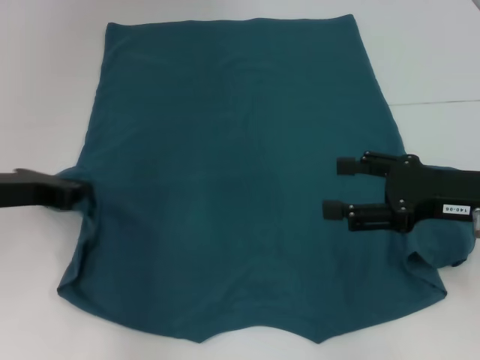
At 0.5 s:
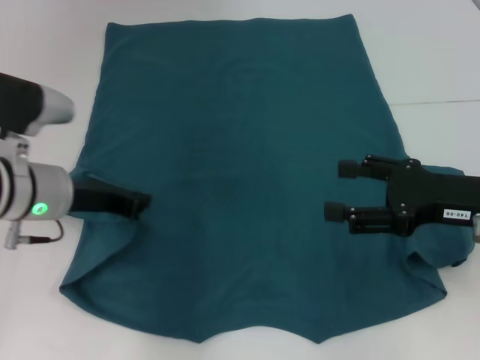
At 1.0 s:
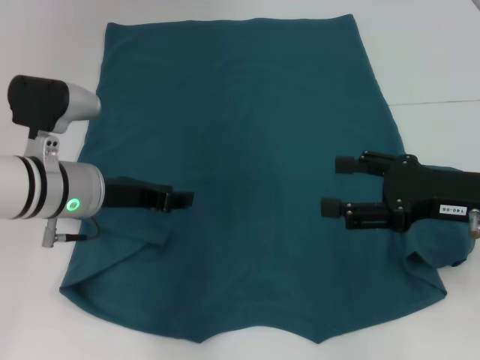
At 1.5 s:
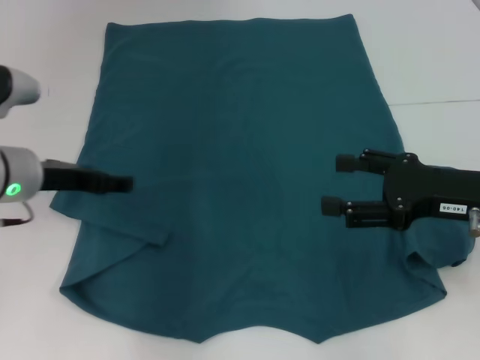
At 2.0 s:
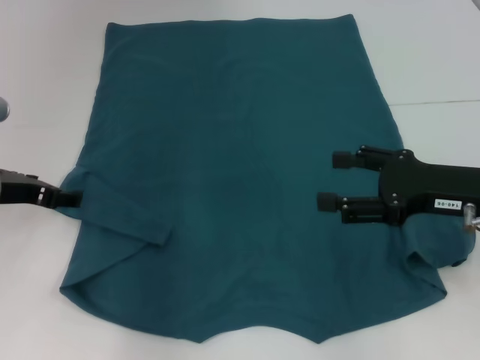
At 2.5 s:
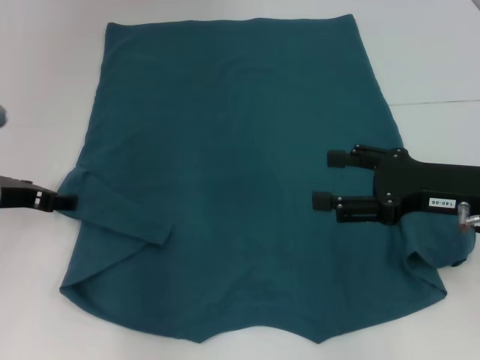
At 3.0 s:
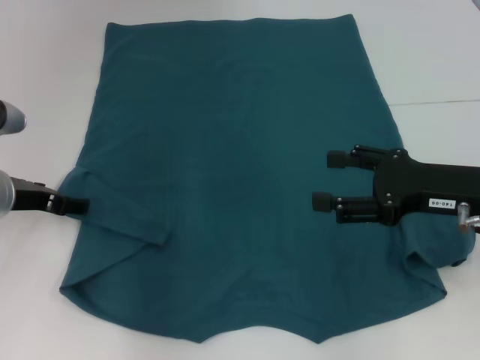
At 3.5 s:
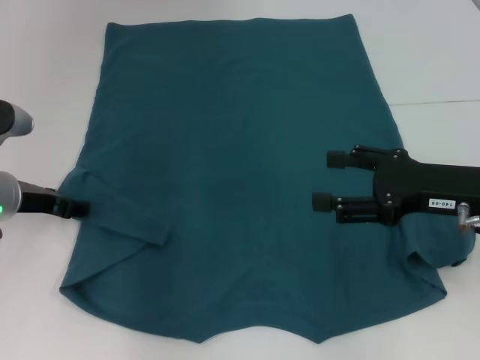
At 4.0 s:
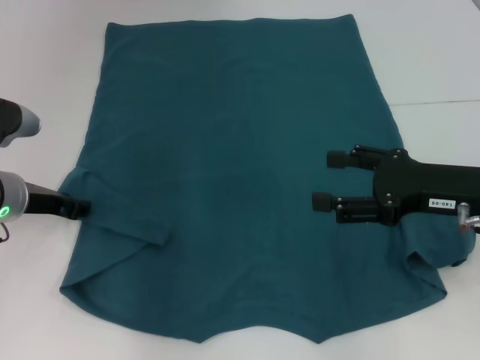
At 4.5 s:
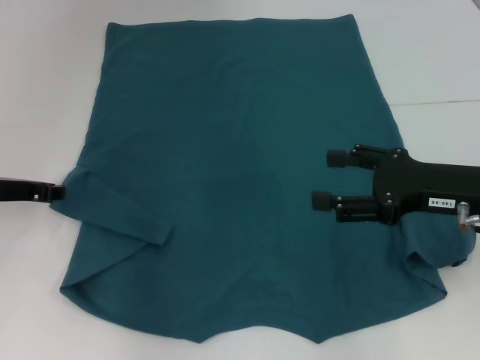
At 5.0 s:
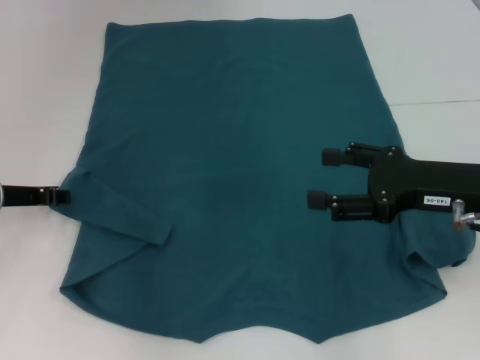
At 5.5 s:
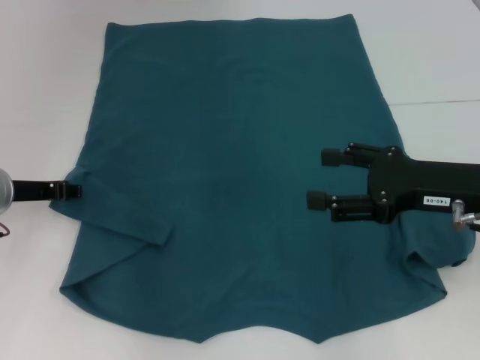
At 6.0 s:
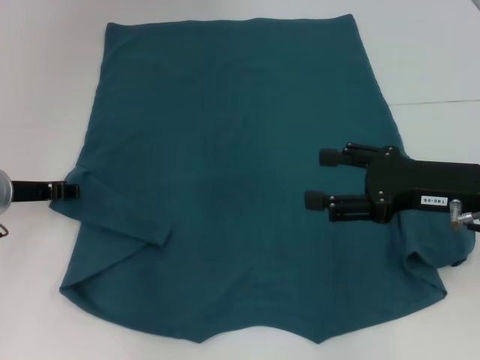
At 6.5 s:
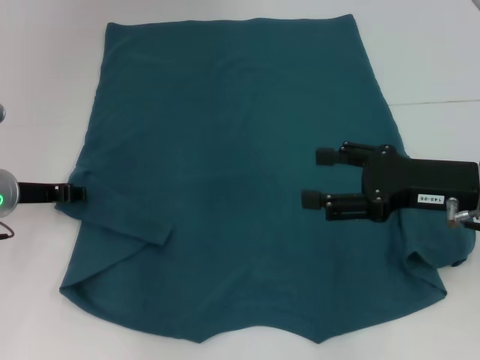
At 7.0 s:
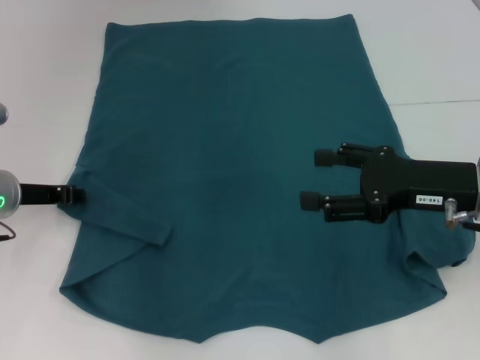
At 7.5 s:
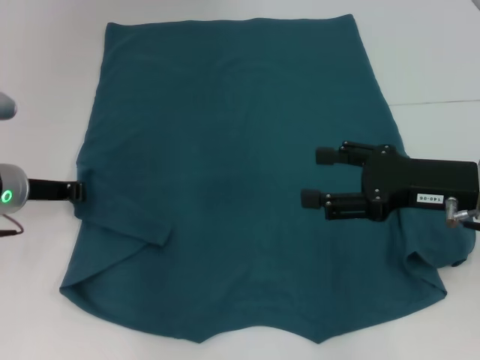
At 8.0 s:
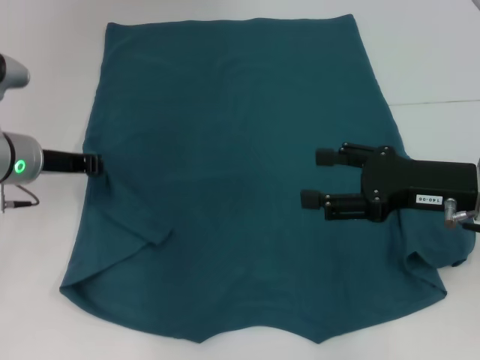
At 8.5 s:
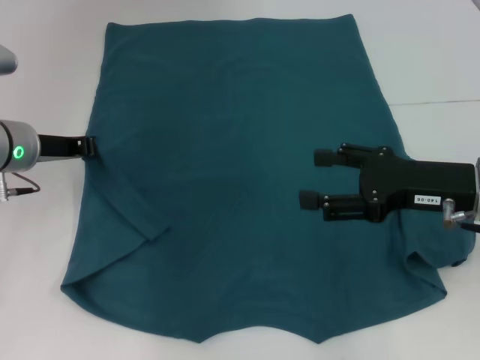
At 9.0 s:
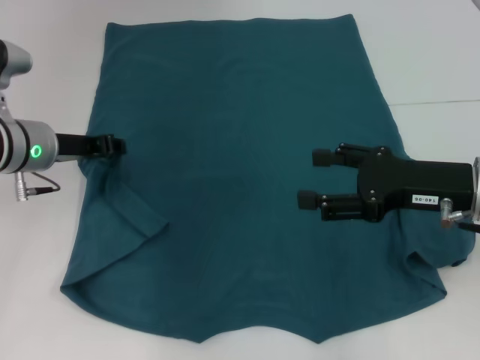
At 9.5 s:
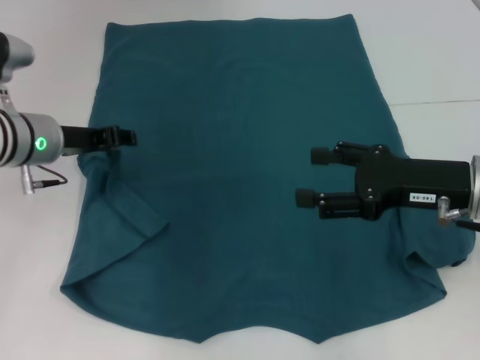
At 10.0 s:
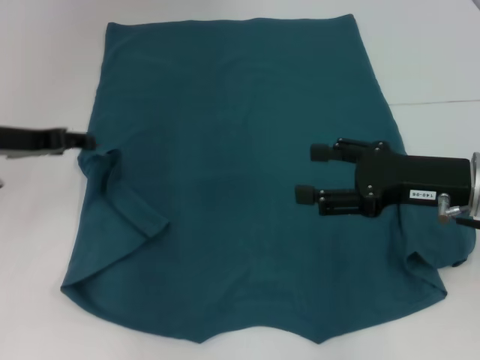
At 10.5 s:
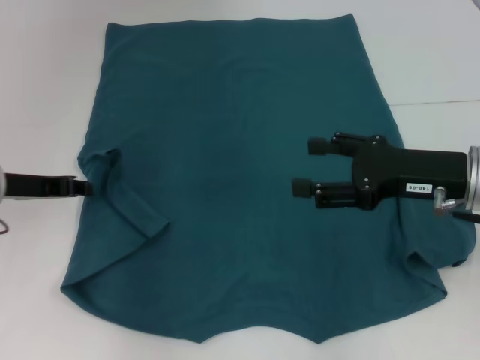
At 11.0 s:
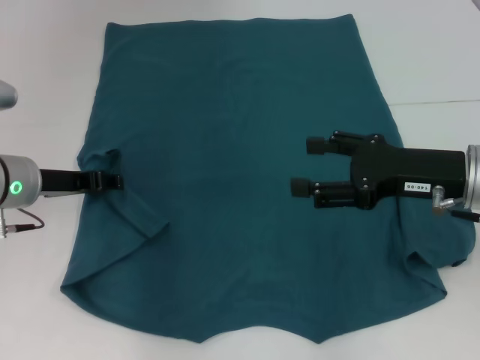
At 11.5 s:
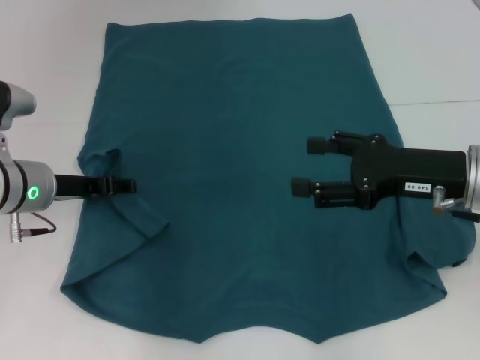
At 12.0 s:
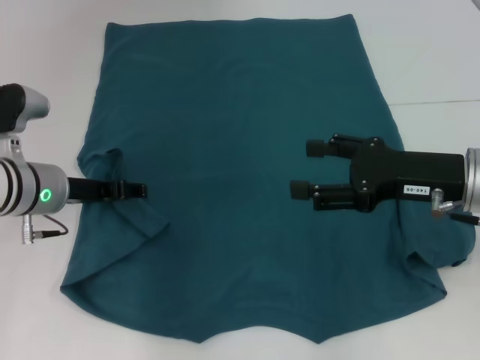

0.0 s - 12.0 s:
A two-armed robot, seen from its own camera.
0.0 s - 2.0 s: The left gripper travels to the right and back again, some 10 cm each way, and opens its fingers.
2.0 s - 4.0 s: The left gripper closes its fingers.
6.0 s - 8.0 s: The left gripper closes its fingers.
8.0 s - 10.0 s: The left gripper ends up approximately 5 cm from where it was, and opens its fingers.
10.0 s - 12.0 s: The left gripper goes roughly 10 cm downward and to the right.

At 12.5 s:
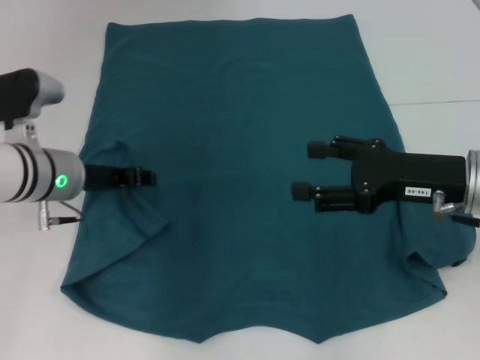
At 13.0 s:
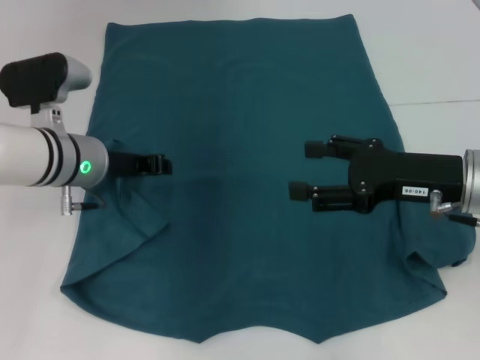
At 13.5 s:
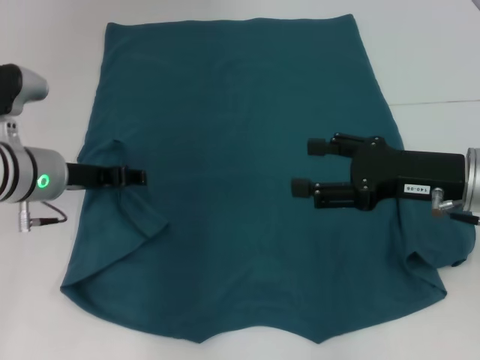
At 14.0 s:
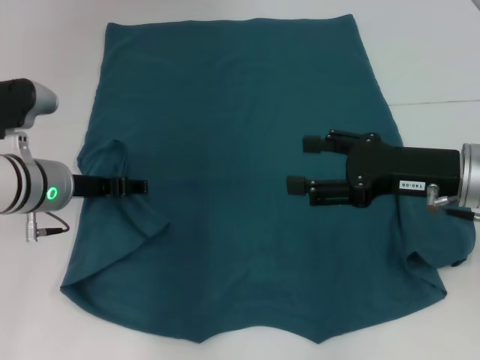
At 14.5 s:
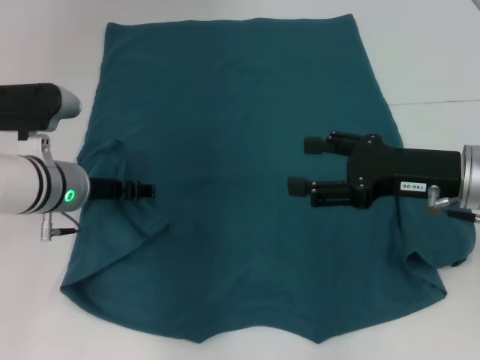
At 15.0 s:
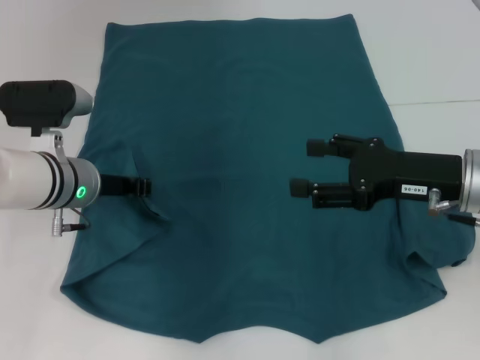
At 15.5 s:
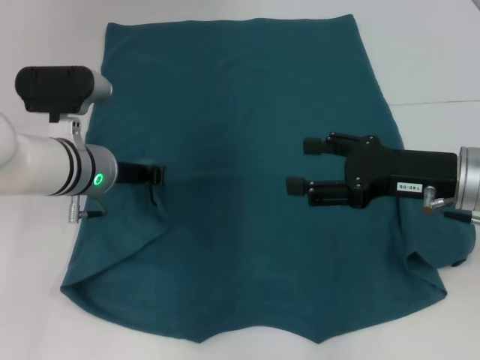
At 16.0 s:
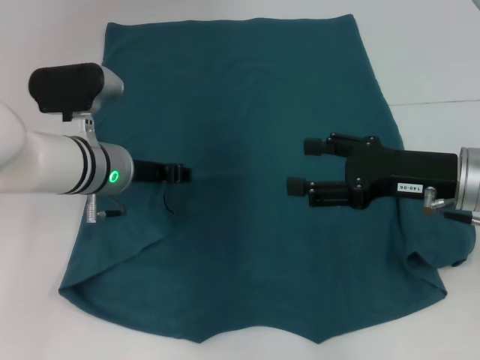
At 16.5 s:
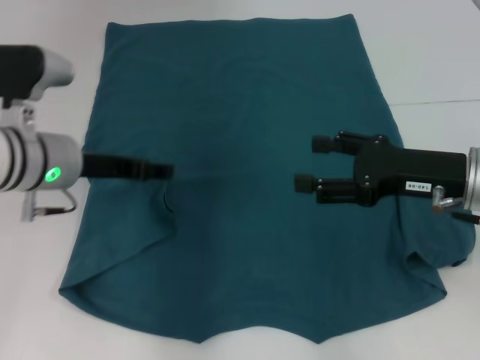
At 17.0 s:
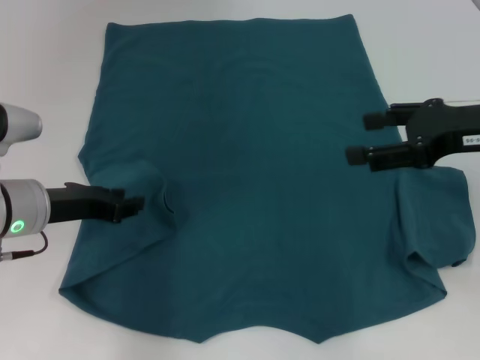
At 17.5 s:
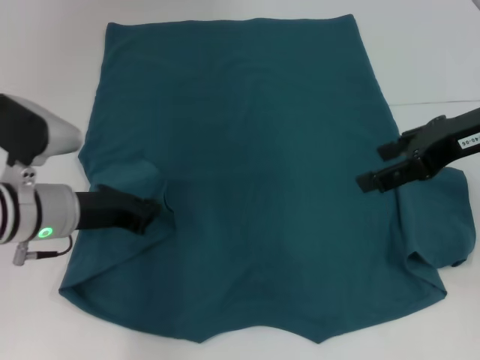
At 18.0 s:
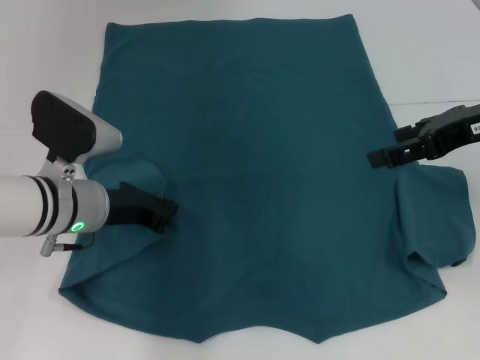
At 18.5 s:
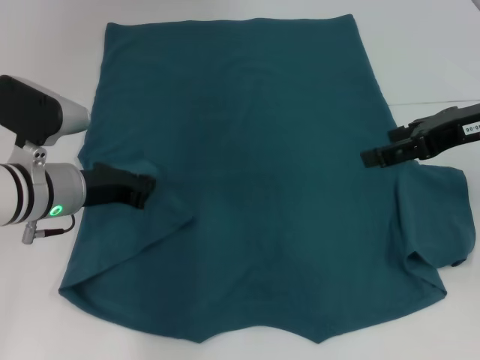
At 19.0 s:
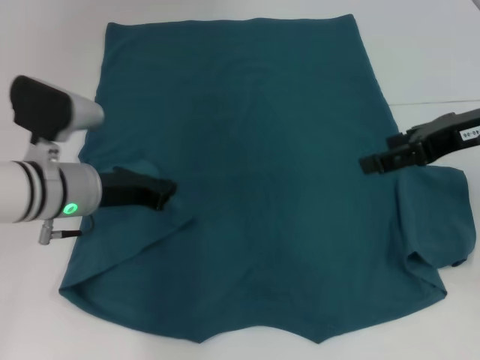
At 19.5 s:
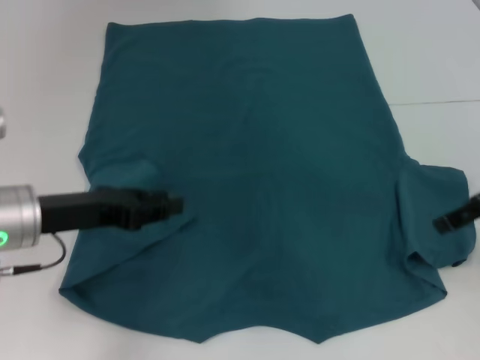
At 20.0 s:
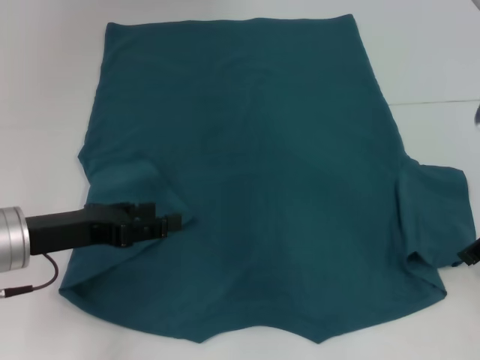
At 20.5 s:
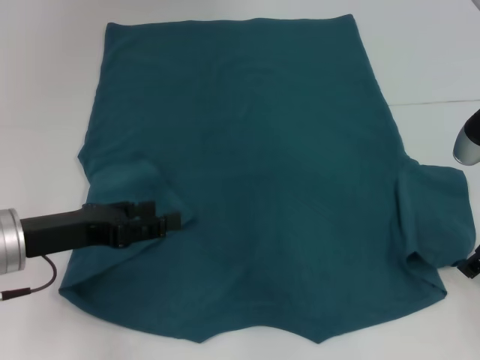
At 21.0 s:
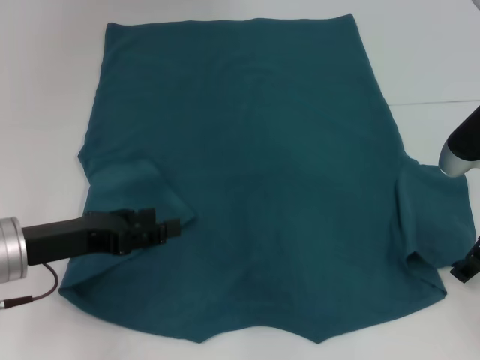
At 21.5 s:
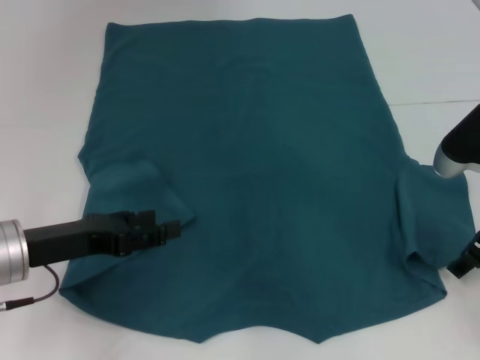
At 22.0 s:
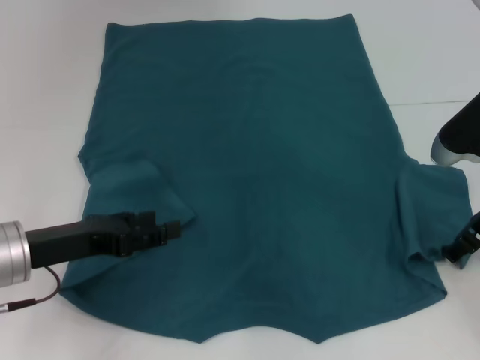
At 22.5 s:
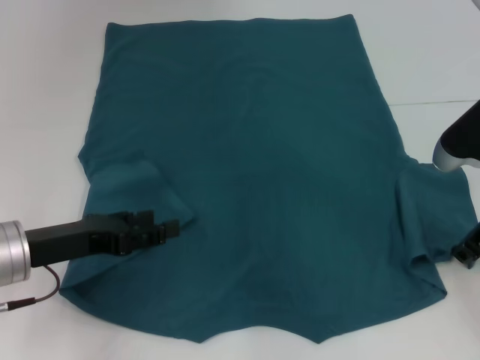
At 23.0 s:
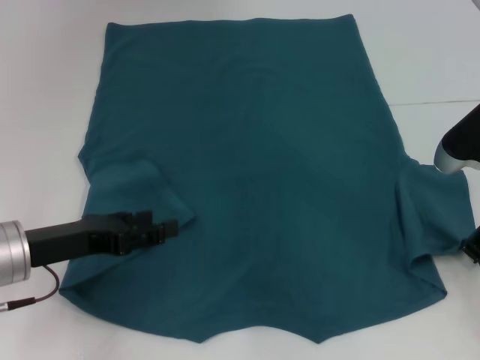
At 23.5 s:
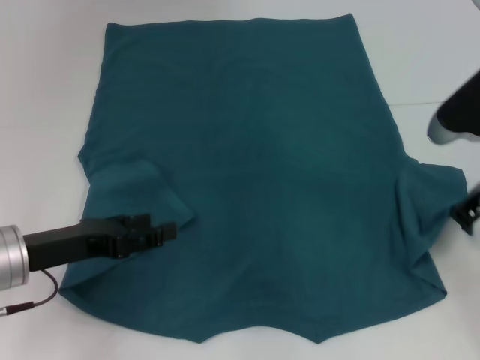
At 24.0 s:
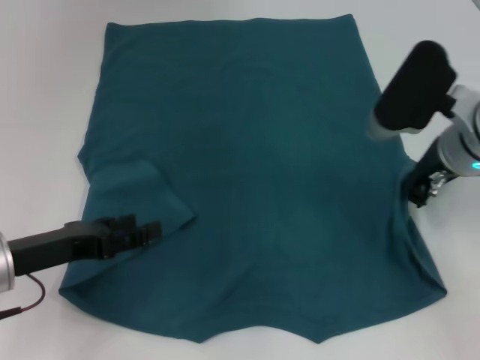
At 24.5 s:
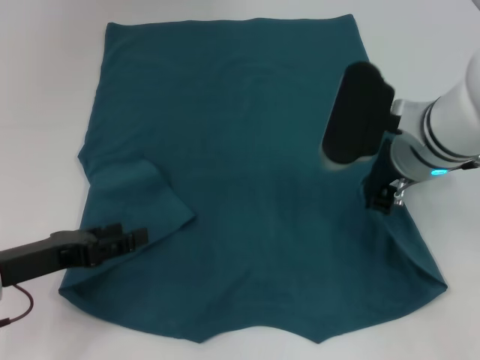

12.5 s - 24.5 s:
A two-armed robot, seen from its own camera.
Step, 12.5 s - 16.5 s: Fold the bottom left sleeve with your left hand.
12.5 s - 14.5 s: The left gripper closes and opens again.
14.5 s - 16.5 s: The left gripper closes, then reopens.
16.5 s - 18.5 s: The right gripper moves upward, roughly 10 cm. Meanwhile the left gripper closes.
18.5 s - 20.5 s: The right gripper travels downward by about 5 cm, while the left gripper goes some 5 cm backward, and opens.
20.5 s - 22.5 s: The grippers stay close to where they were, moving slightly.
22.5 s - 24.5 s: The right gripper moves to the left, roughly 10 cm, and closes.

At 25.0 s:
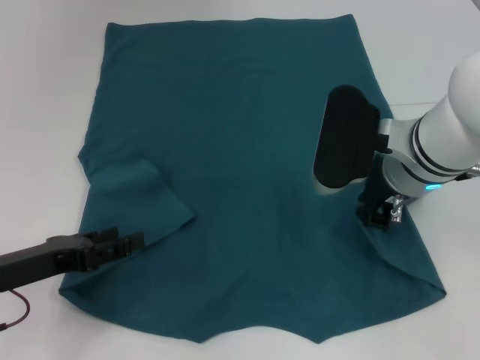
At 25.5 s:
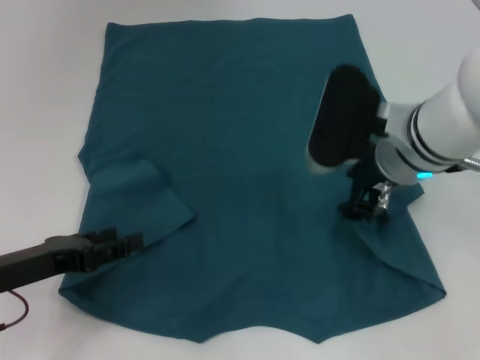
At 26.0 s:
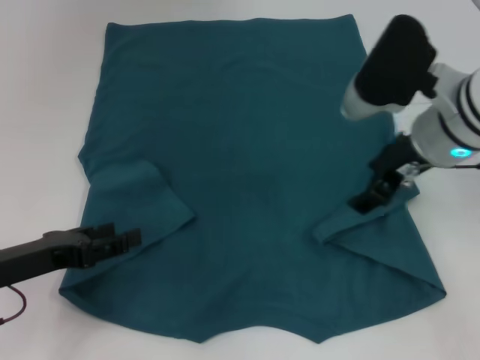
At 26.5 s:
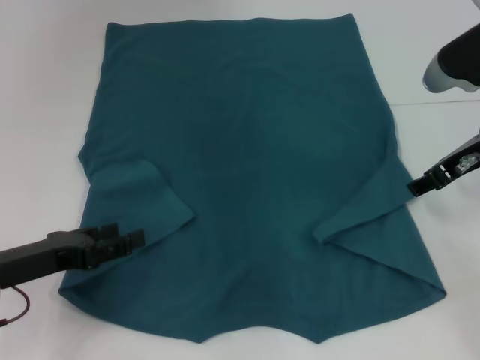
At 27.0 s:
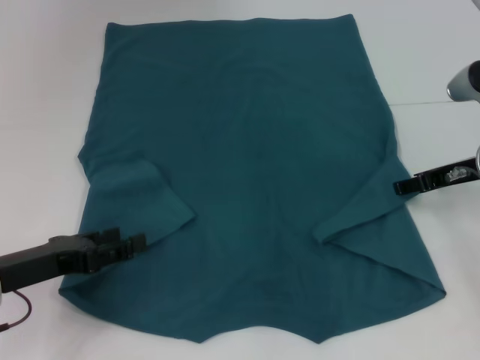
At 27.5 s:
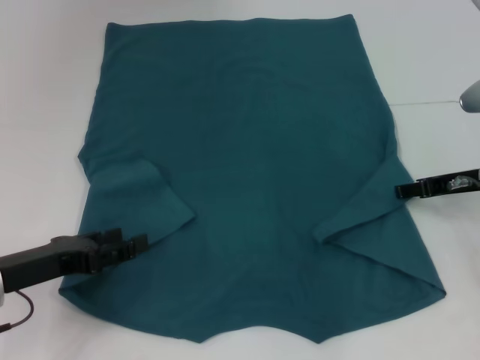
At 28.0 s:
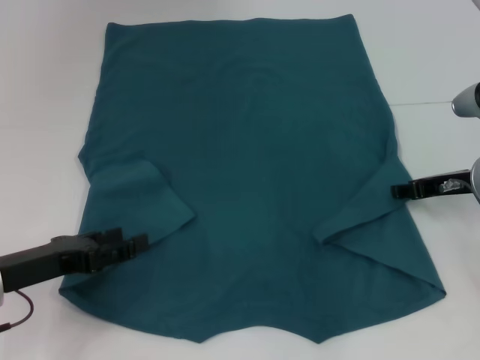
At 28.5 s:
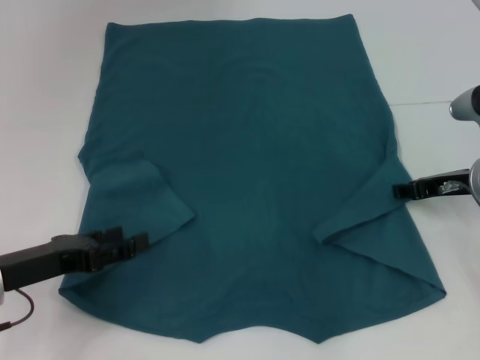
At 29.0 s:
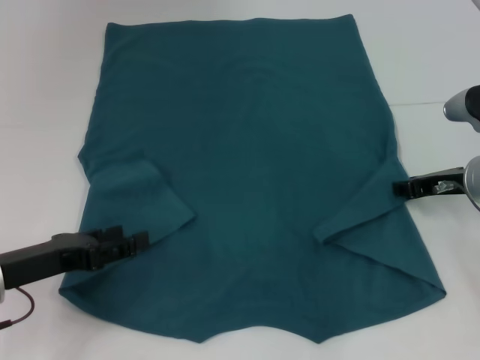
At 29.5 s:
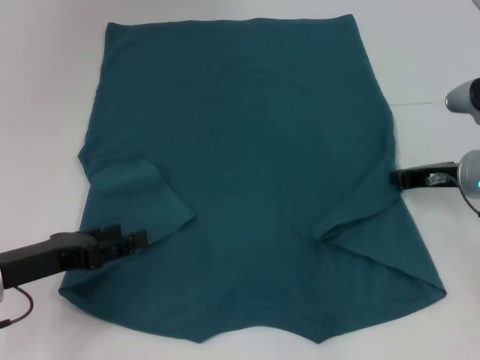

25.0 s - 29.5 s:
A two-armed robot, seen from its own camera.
25.0 s - 27.0 s: The right gripper goes some 15 cm to the right, and opens its fingers.
27.0 s - 29.5 s: The right gripper closes.
